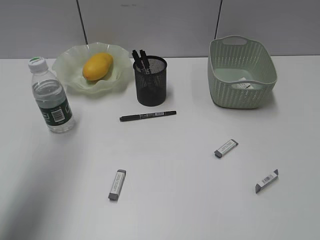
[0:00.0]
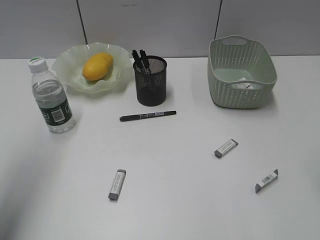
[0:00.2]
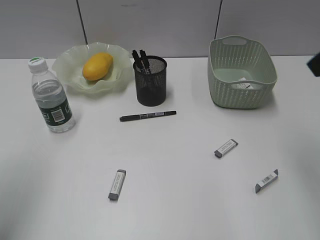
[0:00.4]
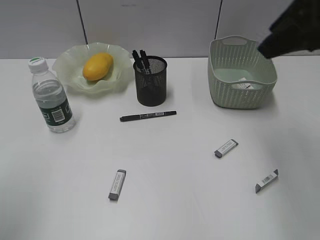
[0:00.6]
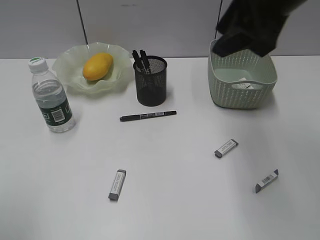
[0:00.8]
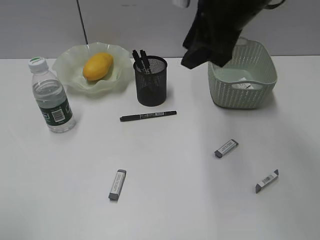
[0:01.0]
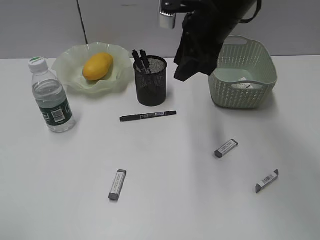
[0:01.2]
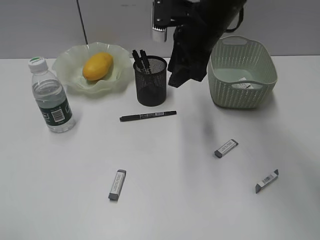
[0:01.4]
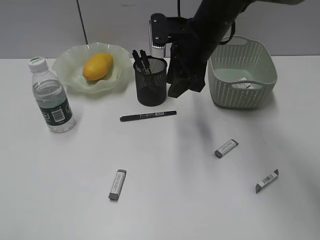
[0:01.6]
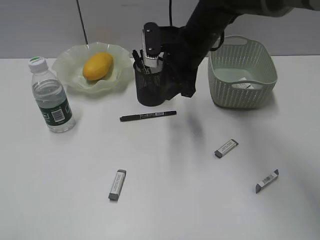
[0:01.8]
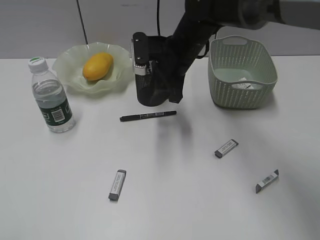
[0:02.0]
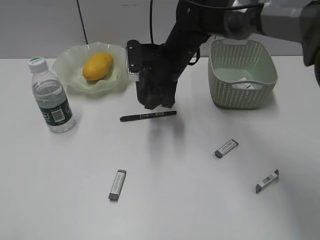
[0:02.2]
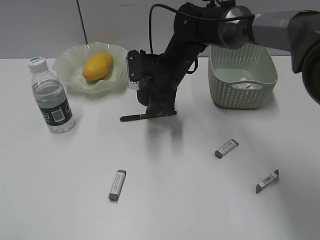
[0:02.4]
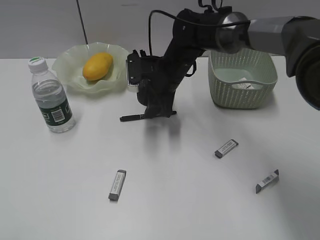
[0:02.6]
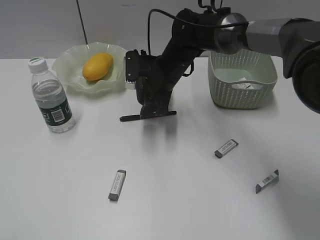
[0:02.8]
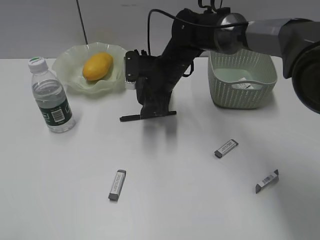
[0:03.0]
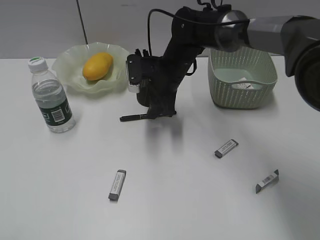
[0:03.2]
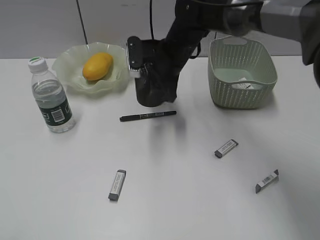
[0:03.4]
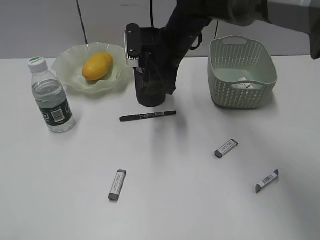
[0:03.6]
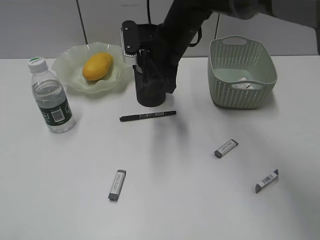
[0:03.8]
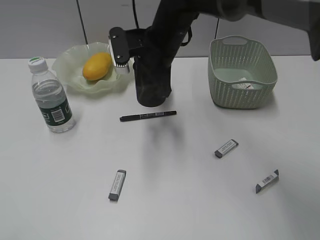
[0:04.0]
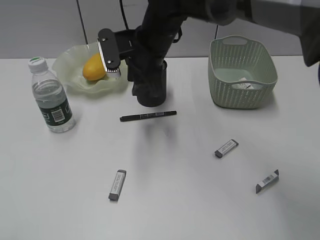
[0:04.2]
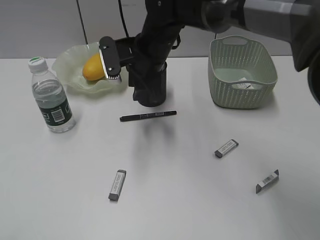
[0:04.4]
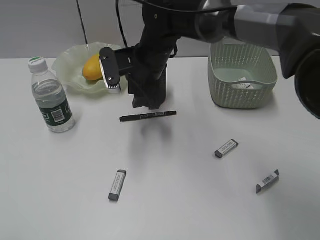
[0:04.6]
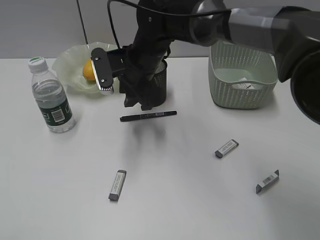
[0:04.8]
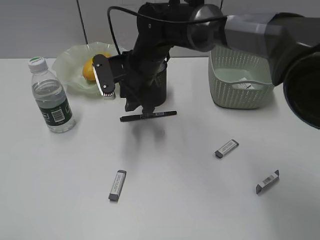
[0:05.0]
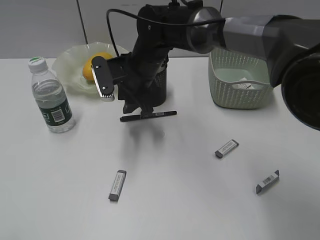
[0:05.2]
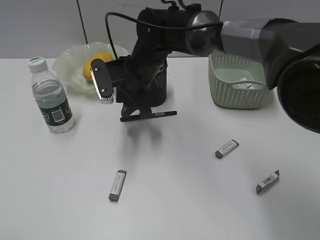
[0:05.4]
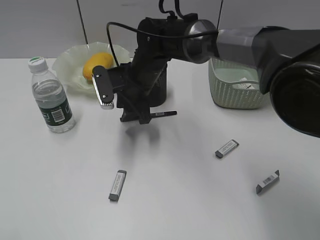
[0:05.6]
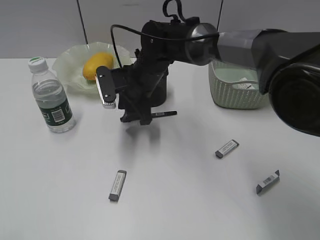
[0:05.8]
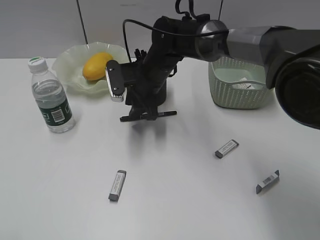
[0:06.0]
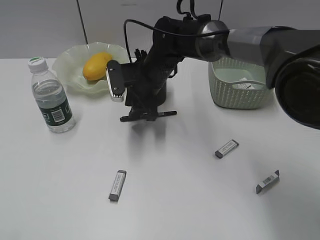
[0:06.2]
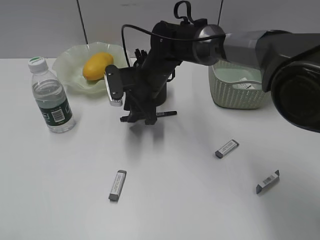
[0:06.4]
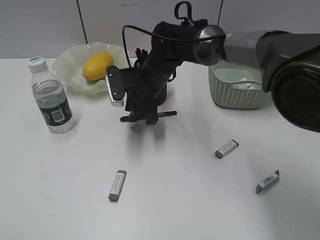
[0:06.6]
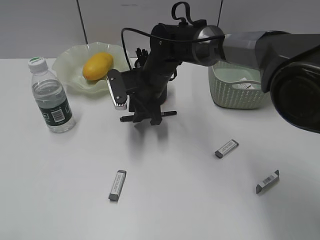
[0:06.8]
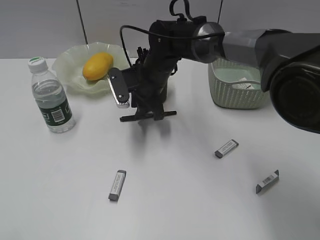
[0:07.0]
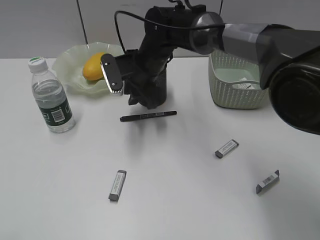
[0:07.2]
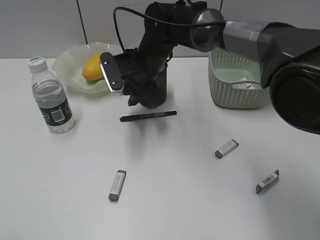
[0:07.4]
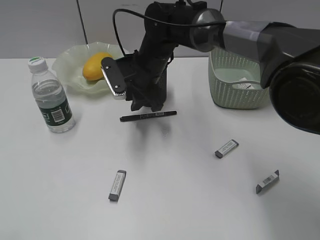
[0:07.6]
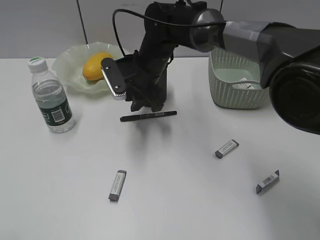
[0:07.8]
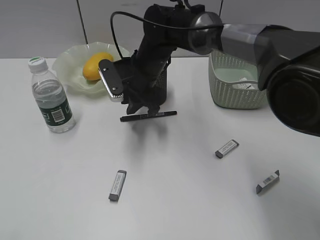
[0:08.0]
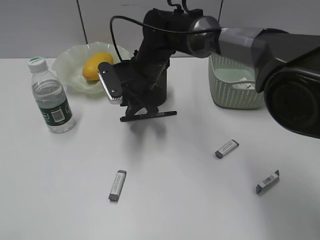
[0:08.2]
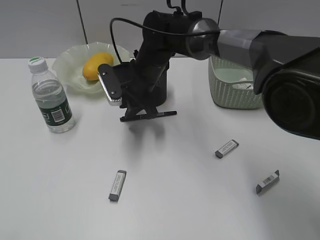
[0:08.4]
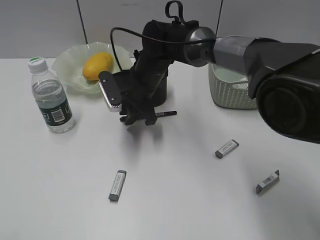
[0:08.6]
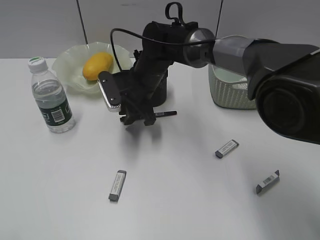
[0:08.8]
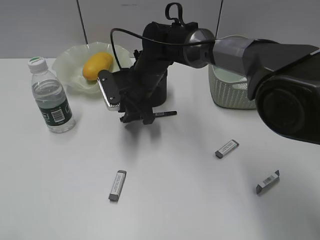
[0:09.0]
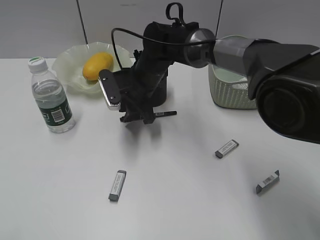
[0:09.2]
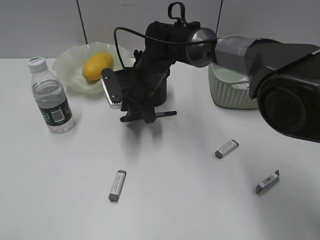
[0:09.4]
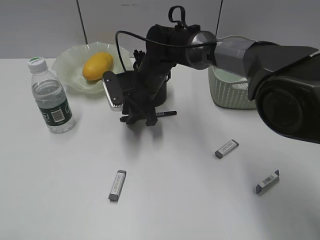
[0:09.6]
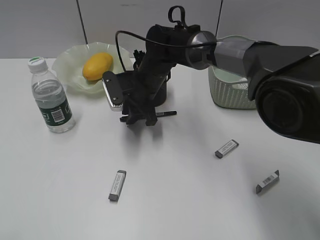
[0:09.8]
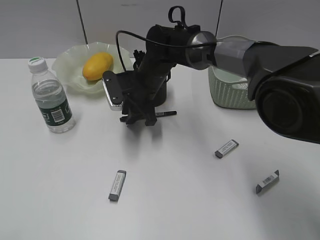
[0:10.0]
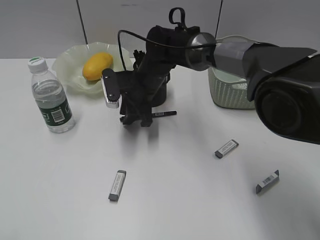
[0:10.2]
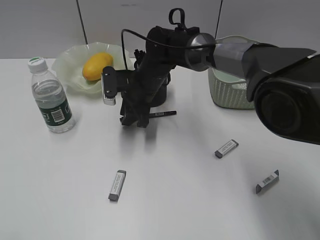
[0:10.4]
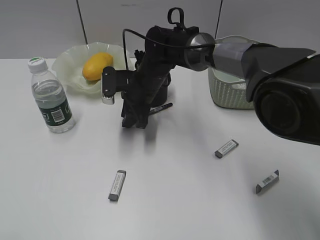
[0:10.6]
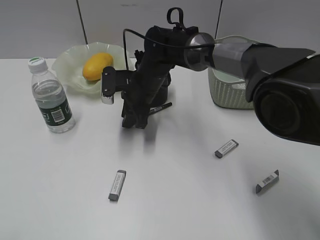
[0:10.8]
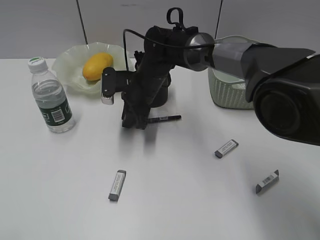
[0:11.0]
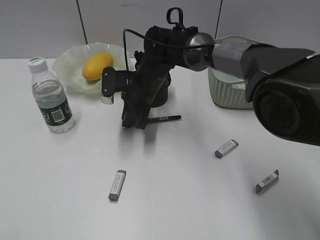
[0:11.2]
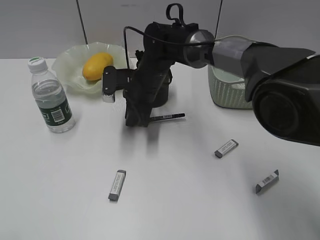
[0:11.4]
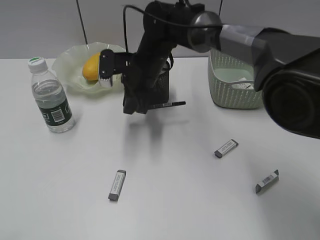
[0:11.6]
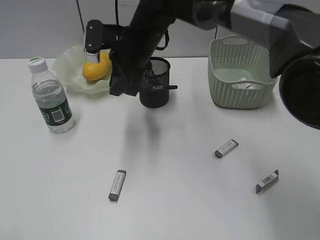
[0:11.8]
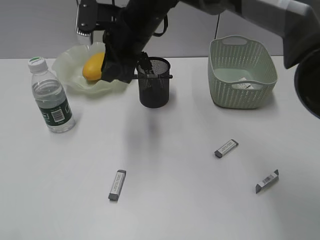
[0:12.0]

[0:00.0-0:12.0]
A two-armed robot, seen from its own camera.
Step, 0:00.0 to 0:11.2: Grasp the black pen with right gripper.
0:00.0 to 0:01.6: The right gripper goes roughly 35 cm forward and to the left; the left gripper heads backward, covering some 25 cm.
0:01.6 to 0:03.0: The right gripper shifts about 10 cm downward and to the left.
0:03.0 to 0:04.4: The right gripper travels upward by some 5 cm.
0:04.4 to 0:06.0: The right gripper shifts approximately 5 cm downward.
0:06.0 to 0:10.4: There are only small adjustments of the grippers.
0:10.4 to 0:12.0: The right gripper moves upward, about 15 cm.

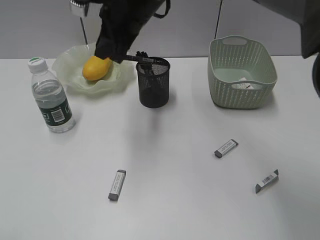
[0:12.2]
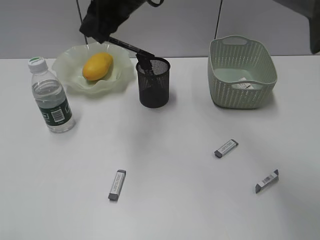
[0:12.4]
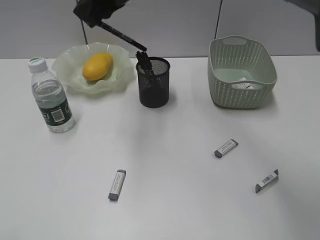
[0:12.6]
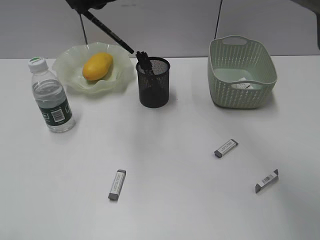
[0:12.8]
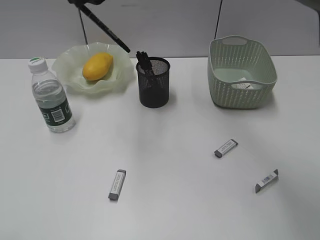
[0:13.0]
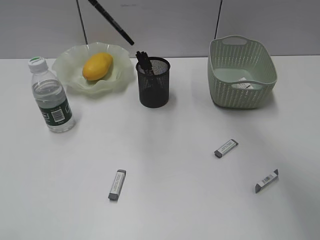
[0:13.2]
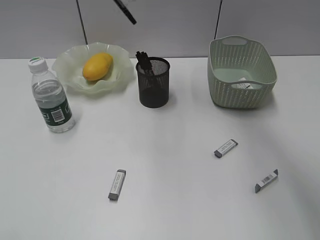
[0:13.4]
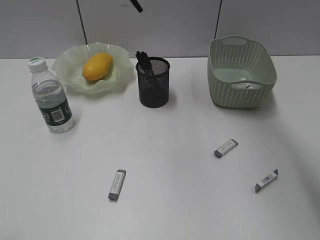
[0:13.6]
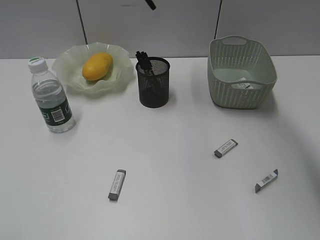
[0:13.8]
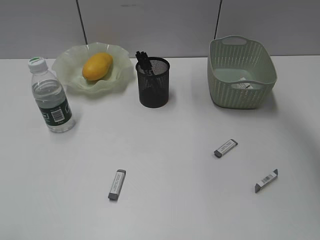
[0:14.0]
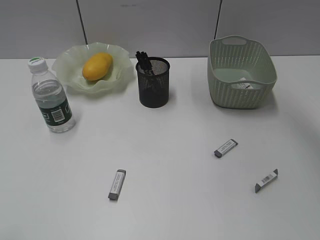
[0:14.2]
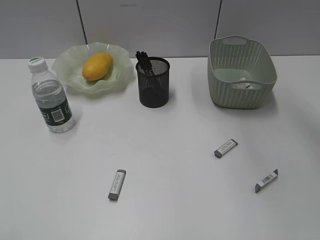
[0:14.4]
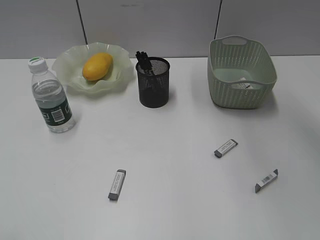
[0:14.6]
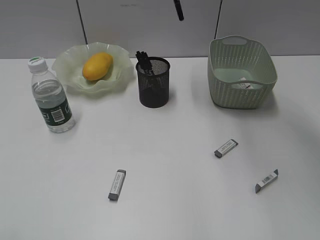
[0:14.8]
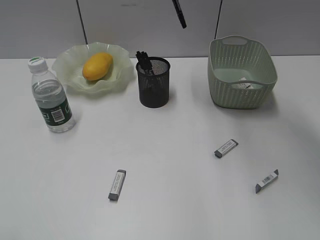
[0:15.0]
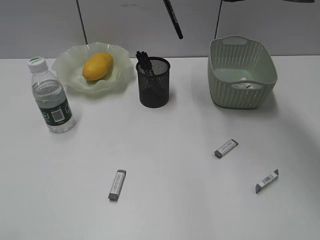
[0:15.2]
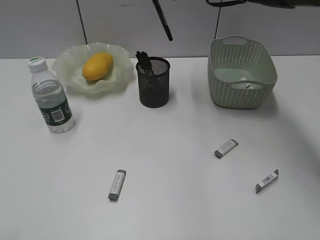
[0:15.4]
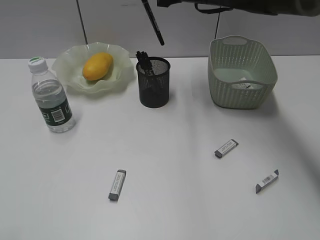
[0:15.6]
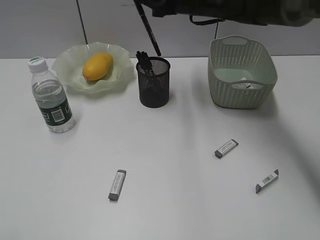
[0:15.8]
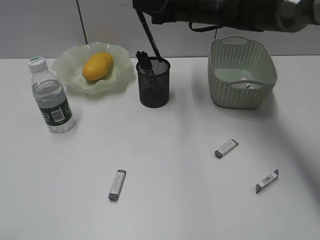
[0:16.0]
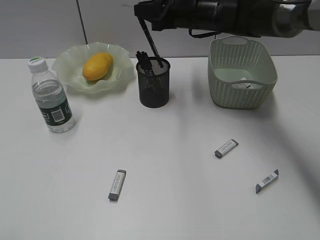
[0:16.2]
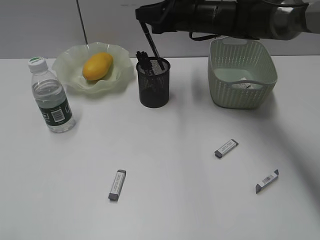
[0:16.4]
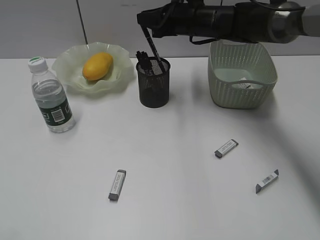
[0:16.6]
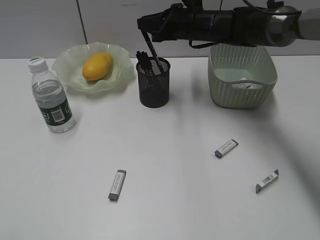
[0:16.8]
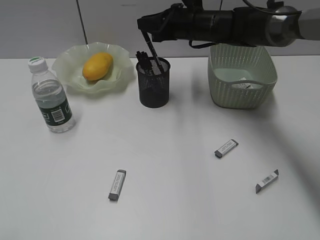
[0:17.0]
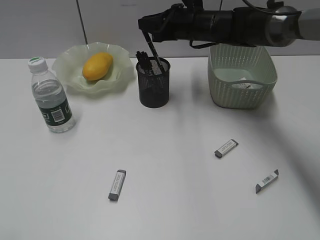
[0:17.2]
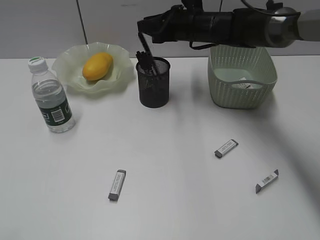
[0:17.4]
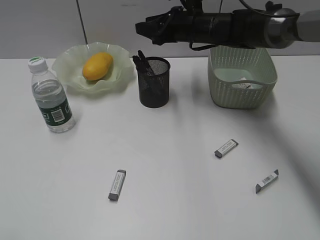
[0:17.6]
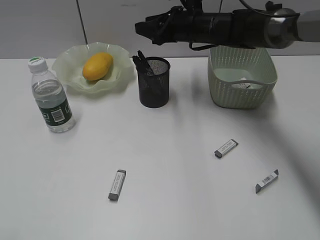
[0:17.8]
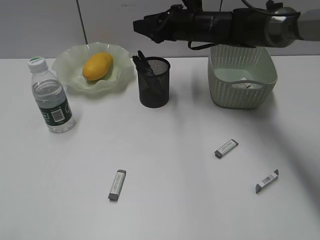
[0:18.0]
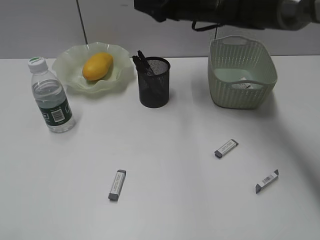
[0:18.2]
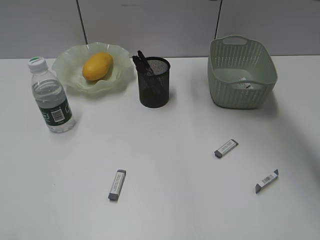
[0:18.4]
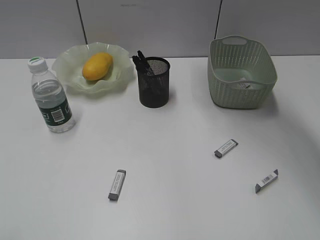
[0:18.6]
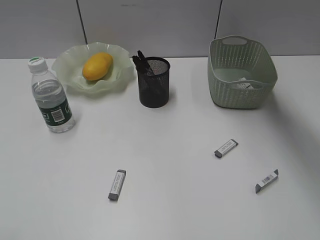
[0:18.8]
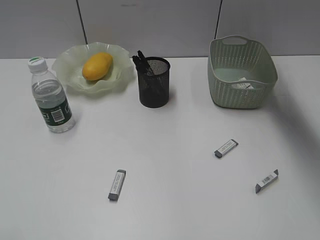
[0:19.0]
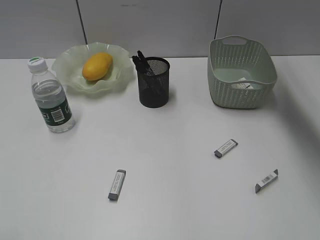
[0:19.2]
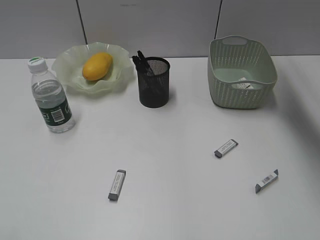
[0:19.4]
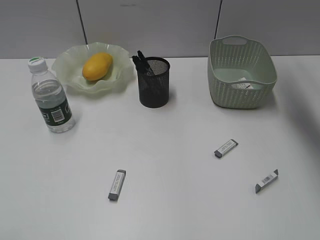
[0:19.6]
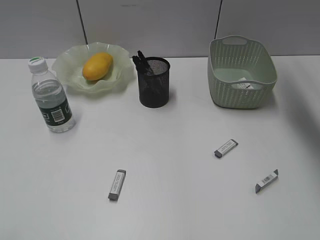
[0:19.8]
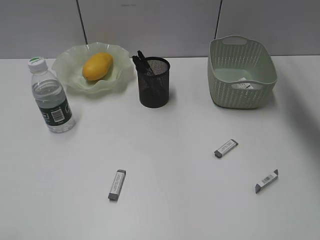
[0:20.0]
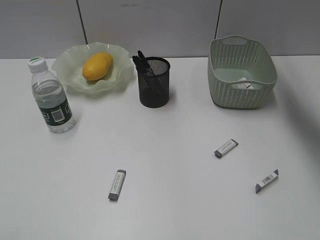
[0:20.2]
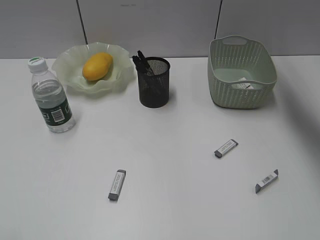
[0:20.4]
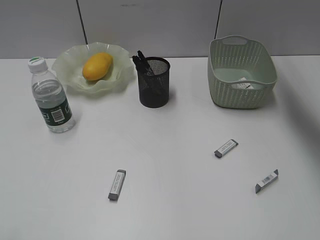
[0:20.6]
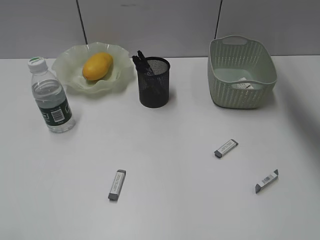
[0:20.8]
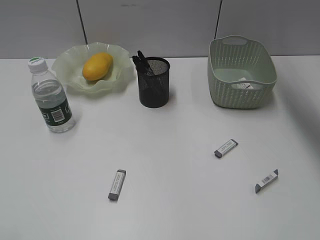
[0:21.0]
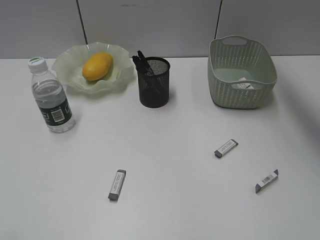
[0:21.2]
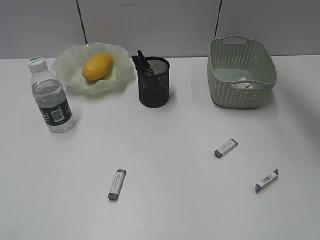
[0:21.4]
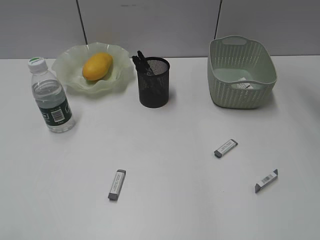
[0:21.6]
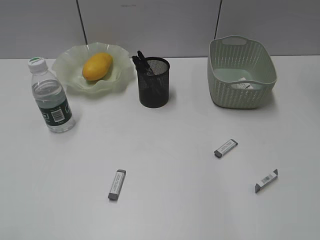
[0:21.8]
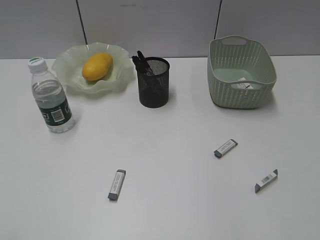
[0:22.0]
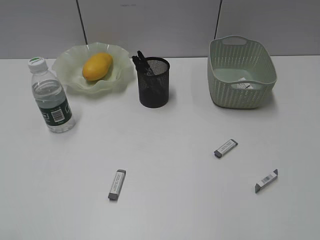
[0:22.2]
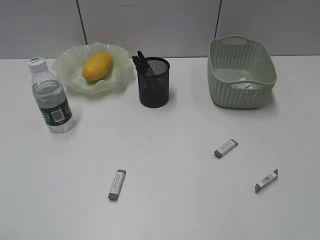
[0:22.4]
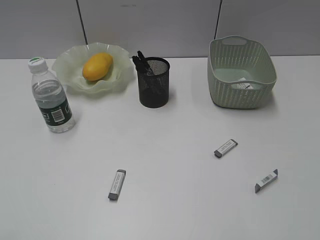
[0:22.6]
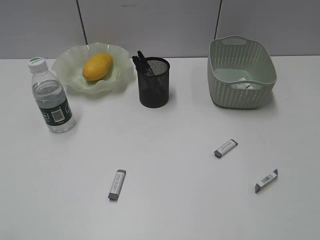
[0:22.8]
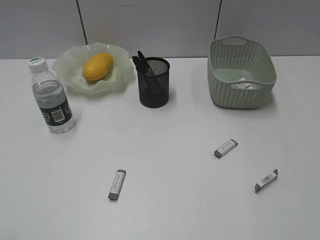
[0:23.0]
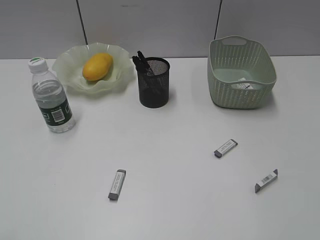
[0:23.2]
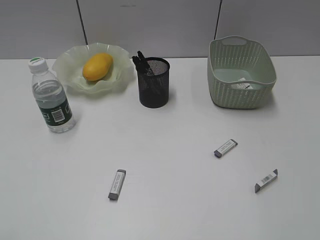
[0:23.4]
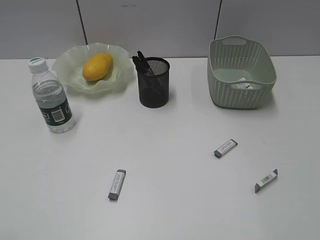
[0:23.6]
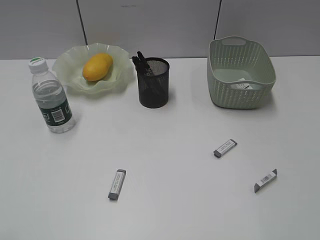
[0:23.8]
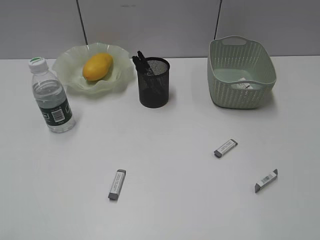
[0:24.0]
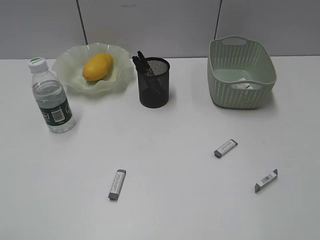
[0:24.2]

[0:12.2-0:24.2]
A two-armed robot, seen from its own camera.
Step, 0:12.2 to 0:17.8: Place the black pen in pen holder with right gripper.
0:12.2 to 0:13.8: The right gripper heads upward and to the right, covering approximately 15 cm.
0:13.8 to 0:15.2: The right gripper shifts some 10 cm downward and to the right.
0:15.2 to 0:16.6: The right gripper travels downward and forward by about 10 cm.
0:16.6 to 0:18.2: The right gripper opens.
0:18.2 to 0:19.8: The right gripper heads to the right and upward, covering some 20 cm.
0:21.2 to 0:22.6: The right gripper goes roughly 30 cm backward and to the right.
